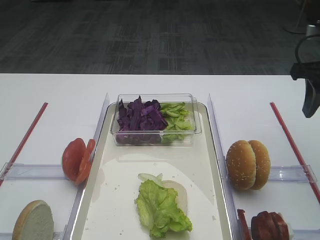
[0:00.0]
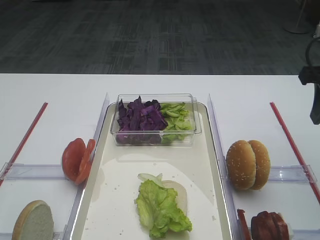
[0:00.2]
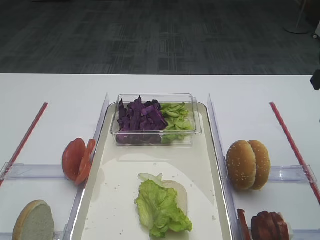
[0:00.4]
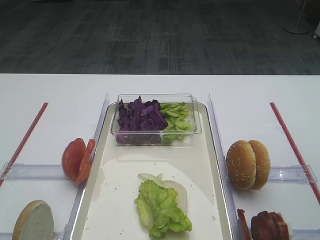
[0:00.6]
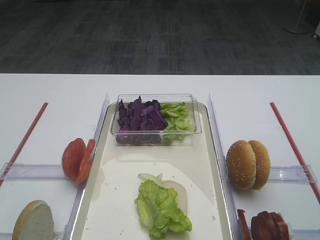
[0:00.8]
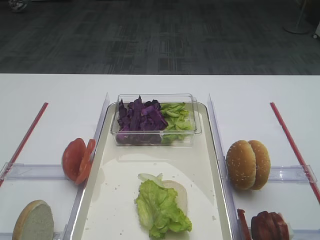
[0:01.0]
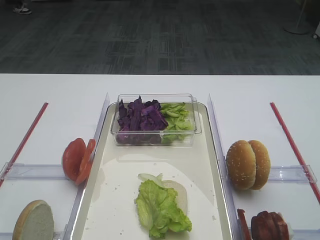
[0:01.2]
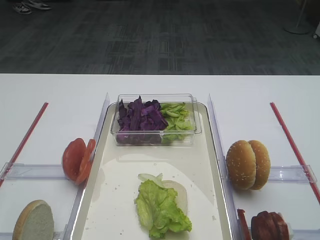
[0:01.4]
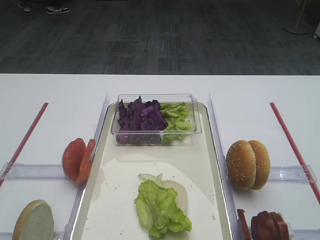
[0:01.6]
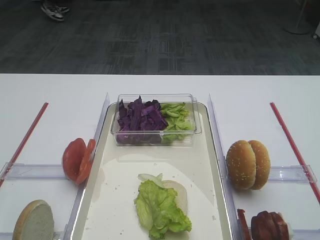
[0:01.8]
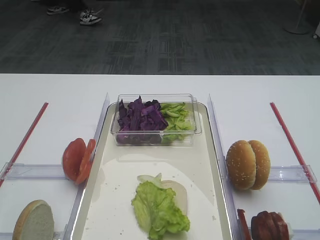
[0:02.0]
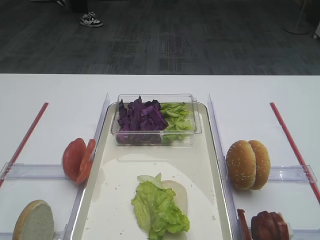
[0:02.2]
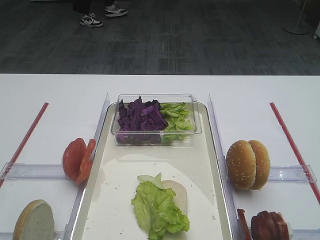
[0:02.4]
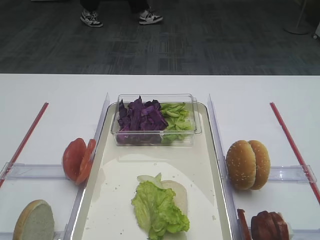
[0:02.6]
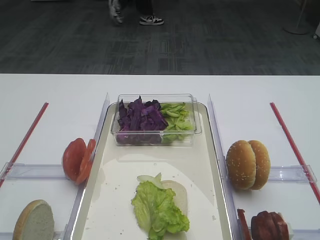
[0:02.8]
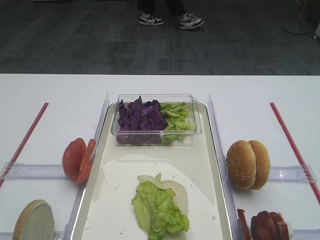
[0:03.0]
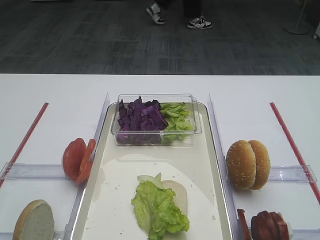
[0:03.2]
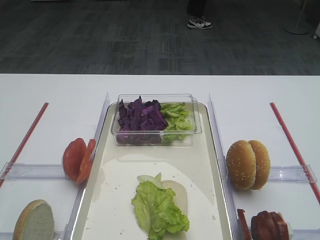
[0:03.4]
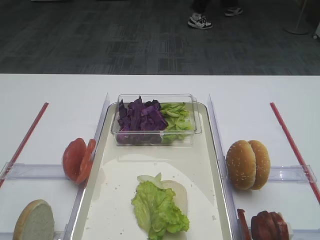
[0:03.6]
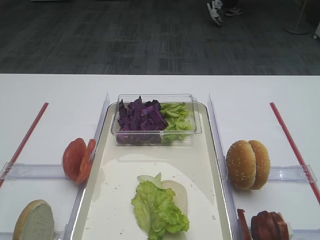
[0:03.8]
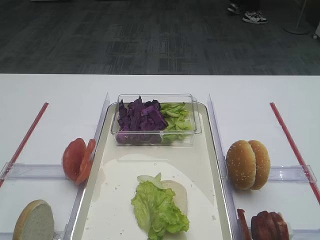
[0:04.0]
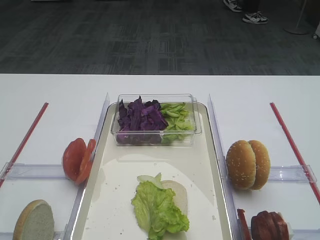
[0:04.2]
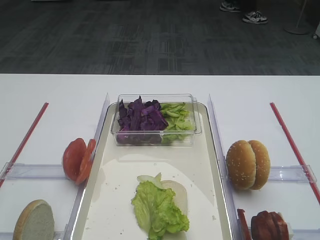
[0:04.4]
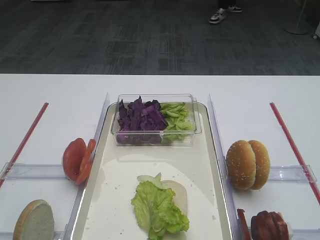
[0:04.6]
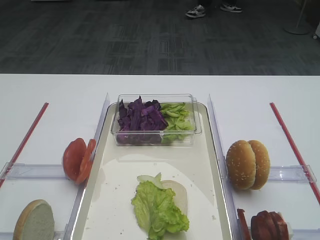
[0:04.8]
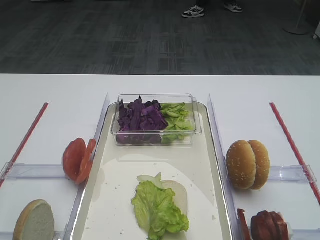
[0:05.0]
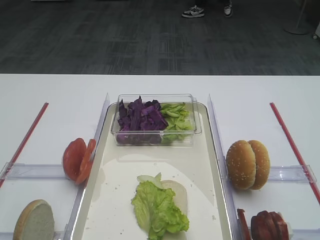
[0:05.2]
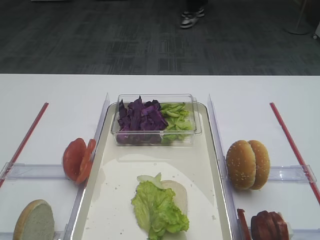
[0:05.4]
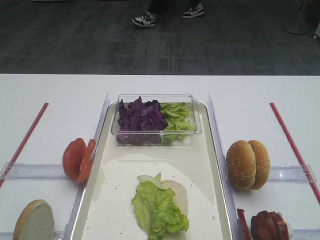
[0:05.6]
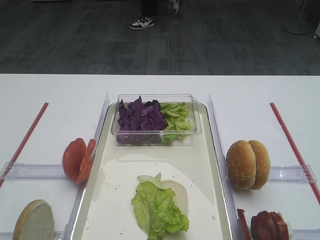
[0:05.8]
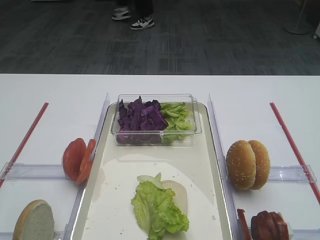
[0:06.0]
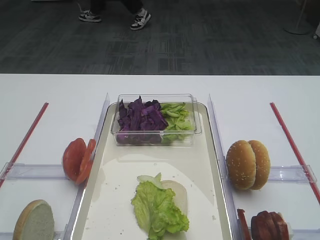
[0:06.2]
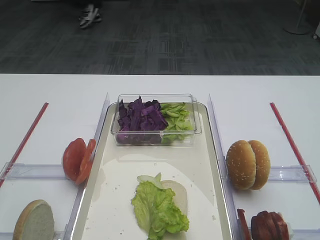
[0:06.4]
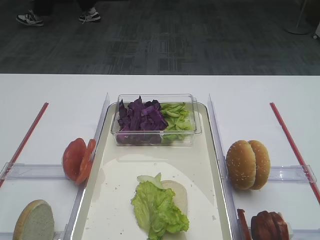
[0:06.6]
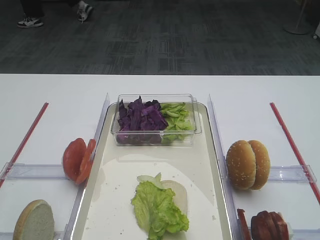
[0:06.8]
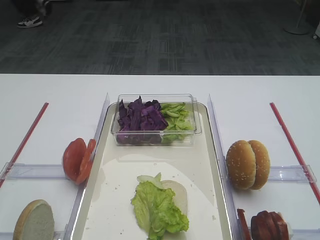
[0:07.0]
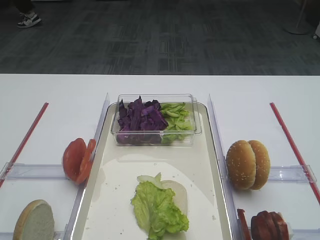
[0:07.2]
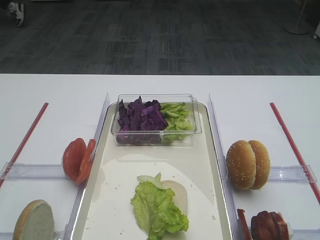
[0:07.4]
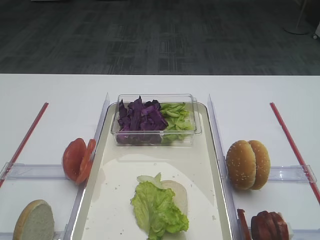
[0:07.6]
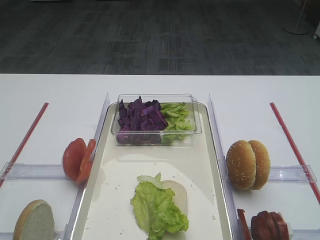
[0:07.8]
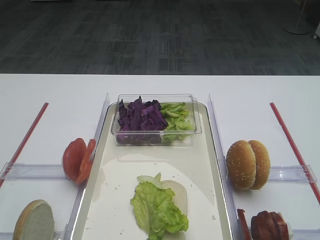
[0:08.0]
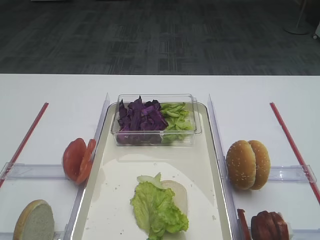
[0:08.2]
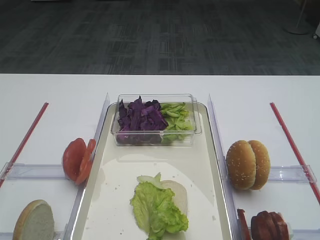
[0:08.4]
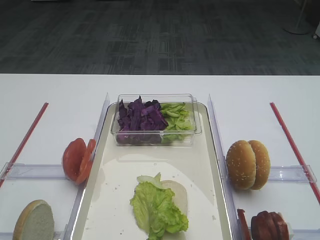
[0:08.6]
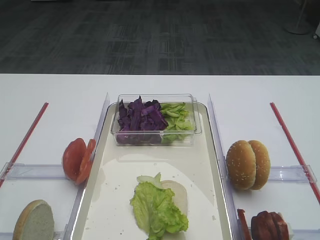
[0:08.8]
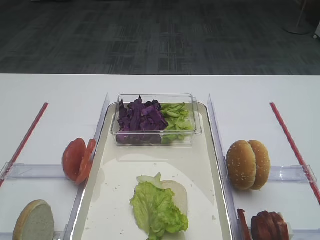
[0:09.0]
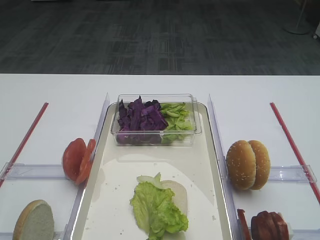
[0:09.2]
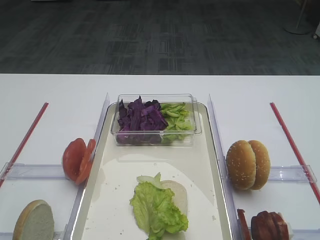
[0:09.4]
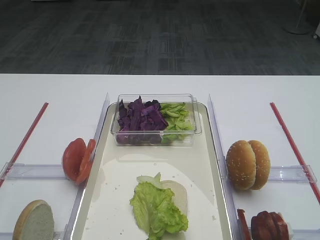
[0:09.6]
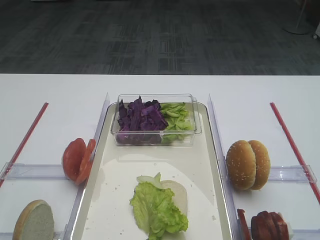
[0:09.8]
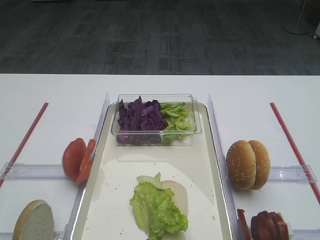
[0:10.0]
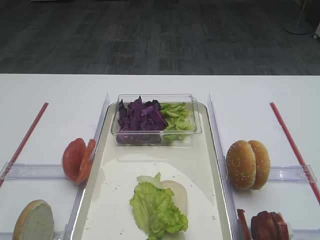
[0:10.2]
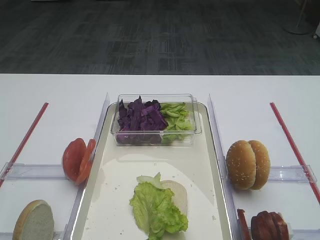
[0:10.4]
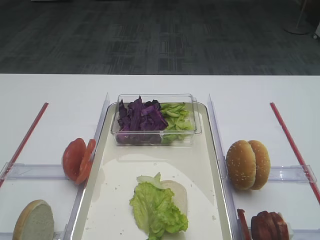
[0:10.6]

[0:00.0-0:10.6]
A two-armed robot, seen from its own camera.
0:00.0 to 0:01.6: The right gripper shifts about 25 cm backward and upward.
0:01.6 to 0:03.0: The right gripper shifts approximately 10 cm backward and downward.
0:04.6 to 0:06.0: Both grippers stay put.
0:06.0 to 0:10.6: The two grippers keep their place.

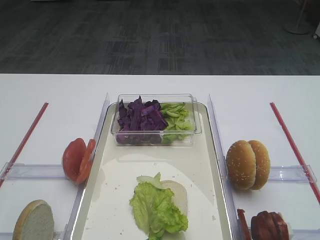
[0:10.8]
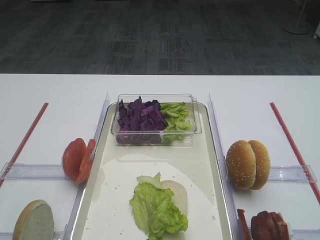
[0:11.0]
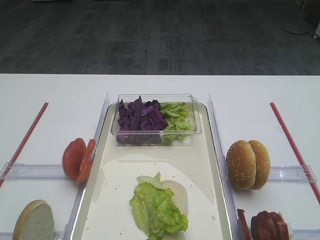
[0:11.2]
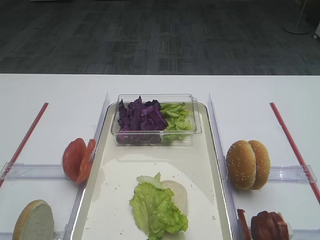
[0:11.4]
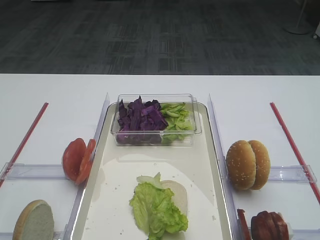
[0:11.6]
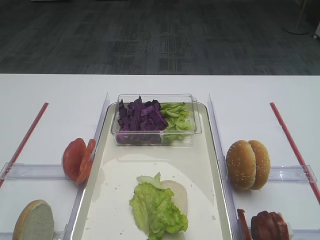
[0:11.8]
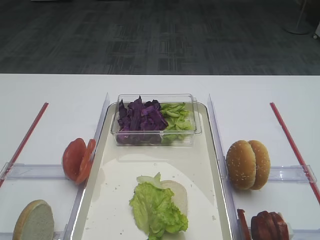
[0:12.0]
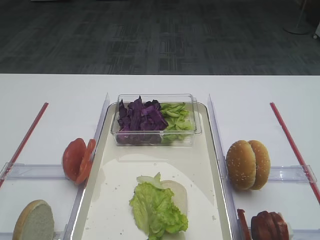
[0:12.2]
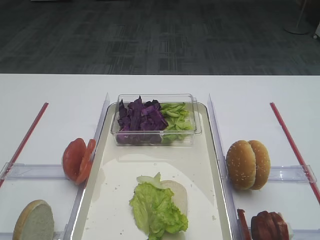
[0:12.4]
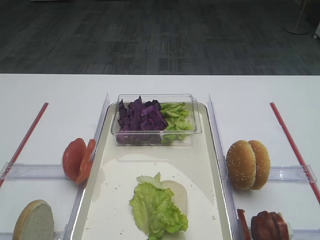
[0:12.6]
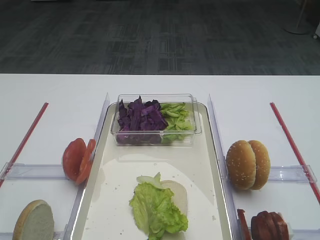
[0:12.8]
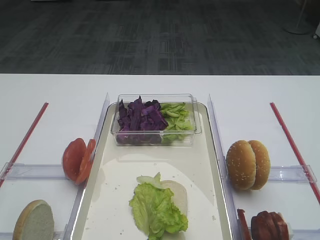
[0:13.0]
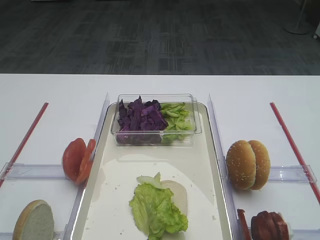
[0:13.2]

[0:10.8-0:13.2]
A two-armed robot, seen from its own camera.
0:10.8 to 0:13.2: The two grippers keep their place.

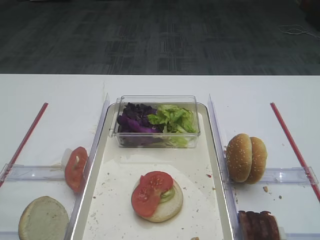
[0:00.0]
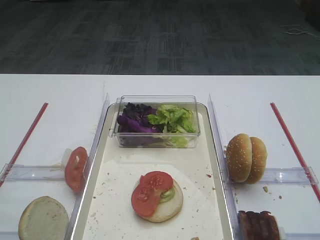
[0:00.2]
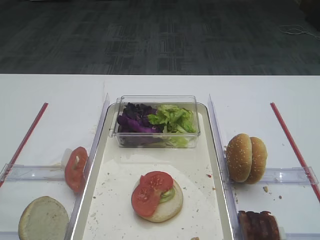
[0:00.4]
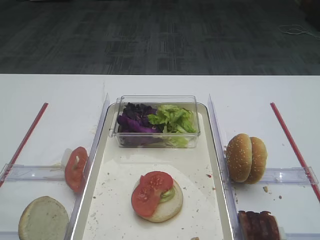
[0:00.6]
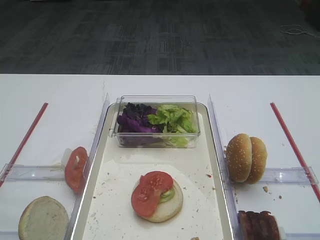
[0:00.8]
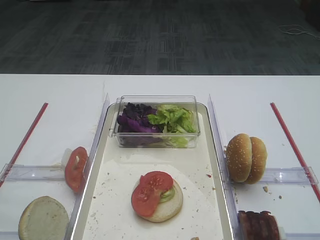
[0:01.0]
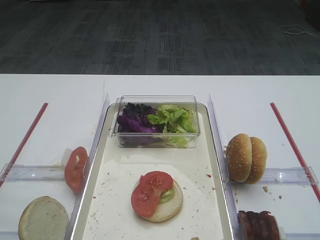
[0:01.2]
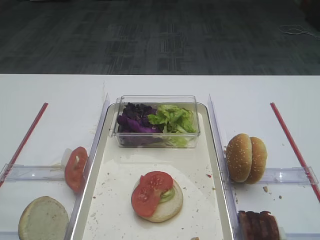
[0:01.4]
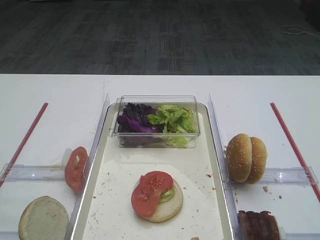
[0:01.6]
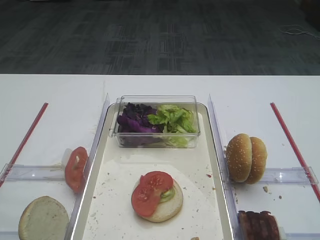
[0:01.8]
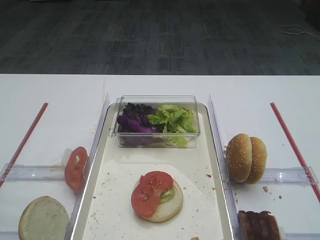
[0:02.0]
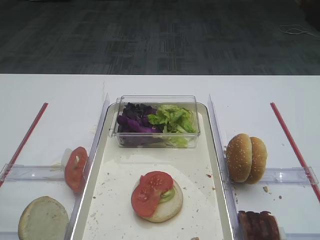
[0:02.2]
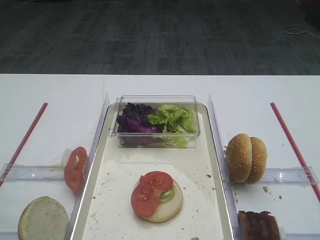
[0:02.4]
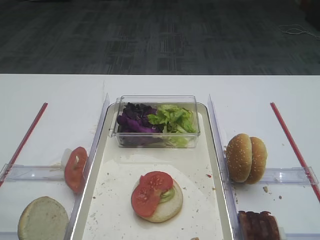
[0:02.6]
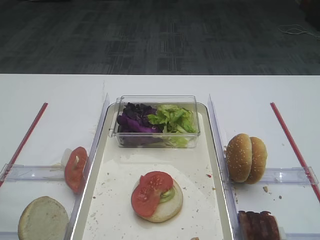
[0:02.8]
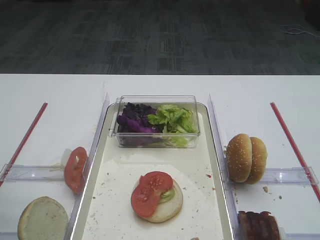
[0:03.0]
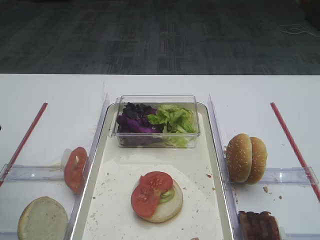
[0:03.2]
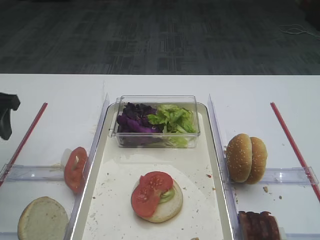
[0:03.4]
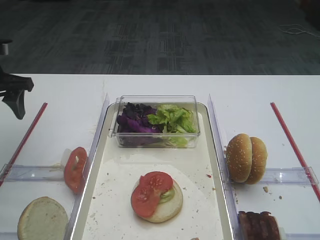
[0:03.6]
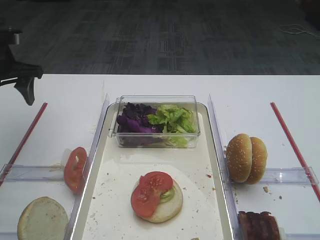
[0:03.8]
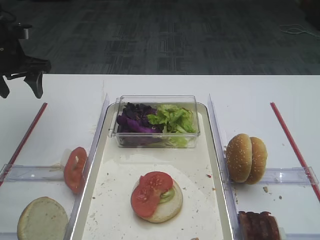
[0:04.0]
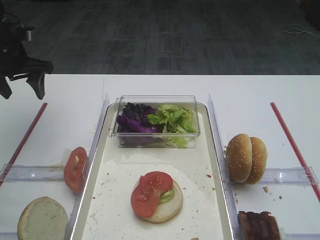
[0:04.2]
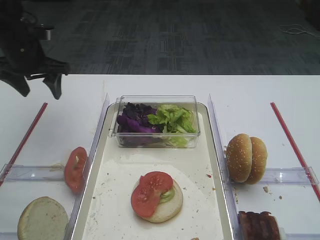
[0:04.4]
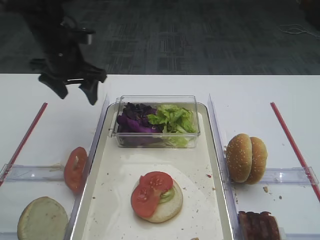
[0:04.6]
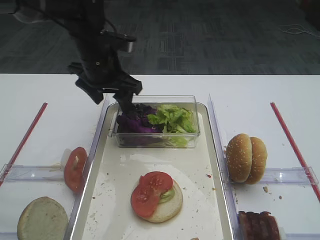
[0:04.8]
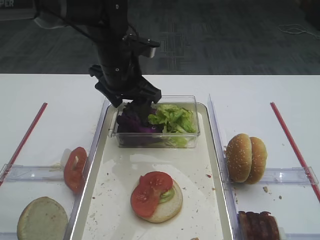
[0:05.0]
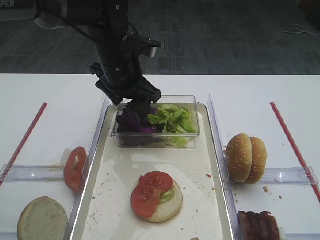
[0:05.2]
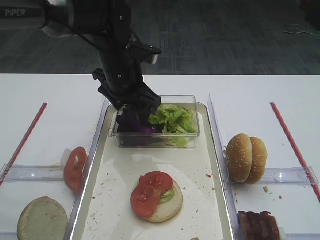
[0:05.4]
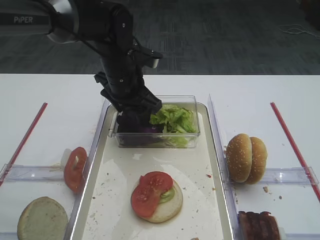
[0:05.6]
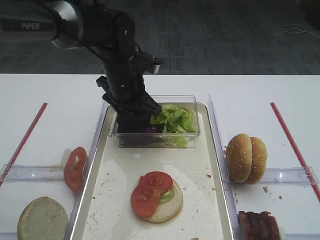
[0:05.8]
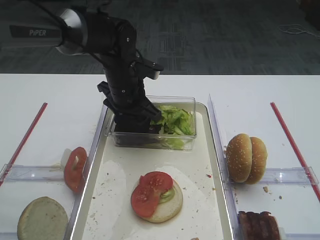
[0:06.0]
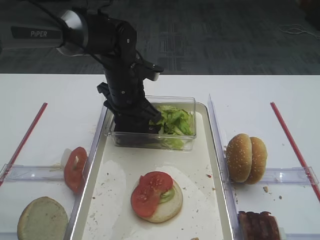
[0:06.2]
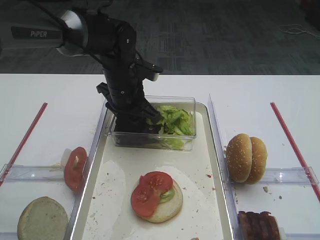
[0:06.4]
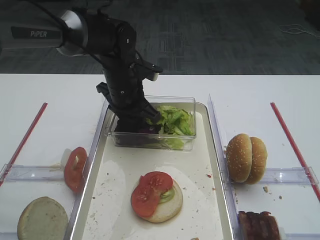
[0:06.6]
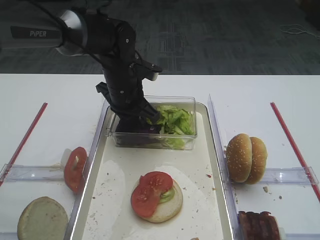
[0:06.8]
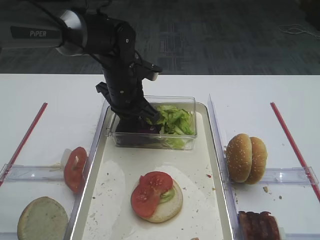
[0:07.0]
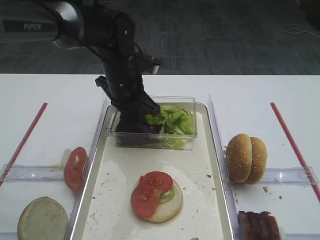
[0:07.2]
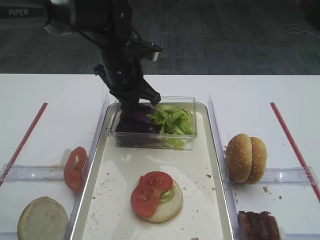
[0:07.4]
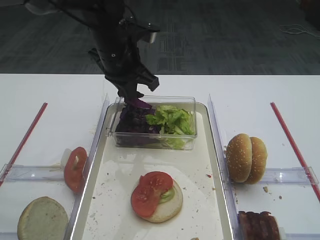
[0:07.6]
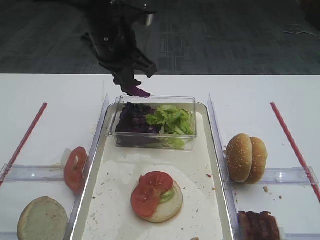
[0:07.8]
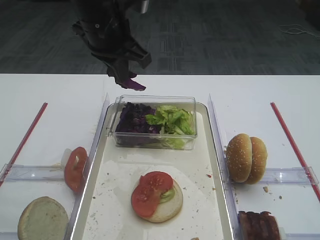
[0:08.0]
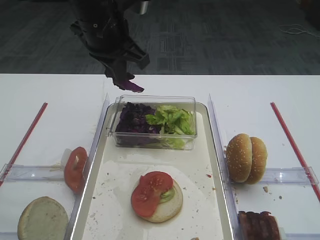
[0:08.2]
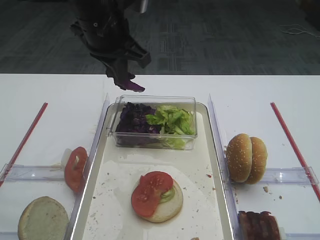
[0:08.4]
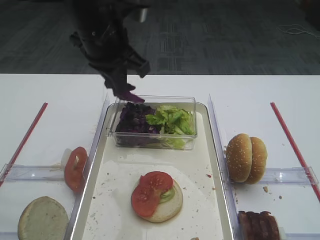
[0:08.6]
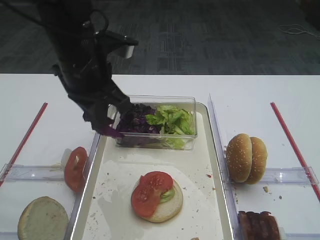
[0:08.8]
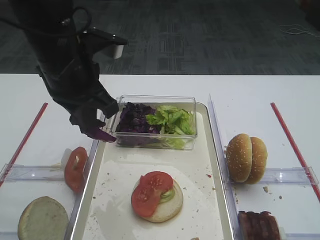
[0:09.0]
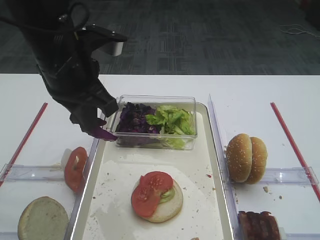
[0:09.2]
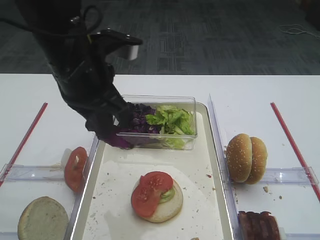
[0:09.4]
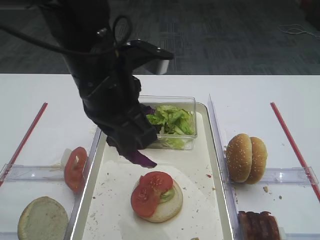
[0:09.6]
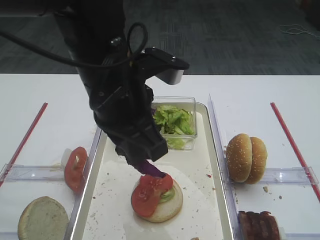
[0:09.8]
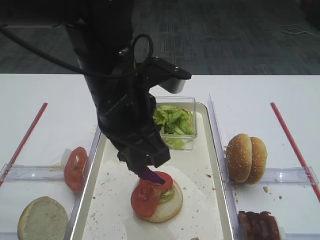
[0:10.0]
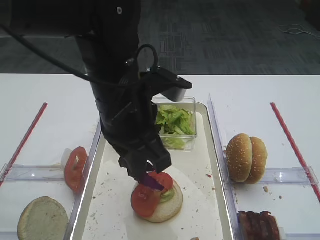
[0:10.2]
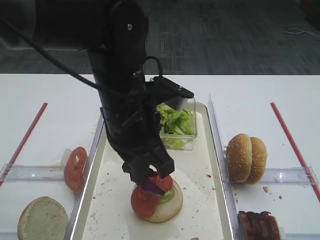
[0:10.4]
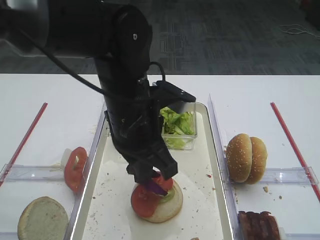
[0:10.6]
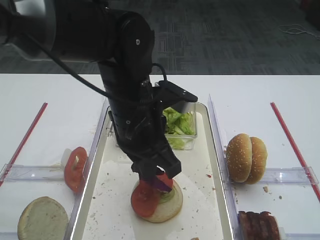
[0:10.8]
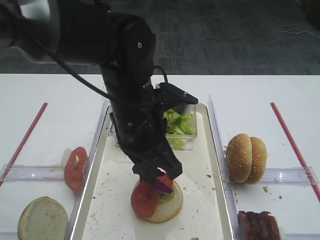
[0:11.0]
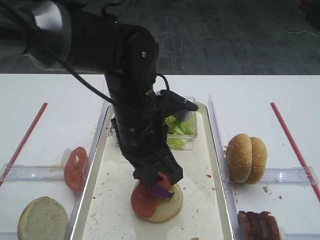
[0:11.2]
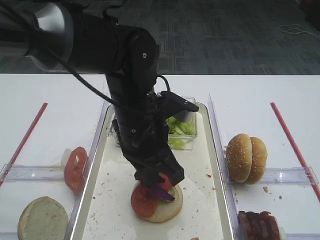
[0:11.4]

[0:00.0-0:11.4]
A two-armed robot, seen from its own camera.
Step, 0:00.0 to 0:07.6: Pick up the purple cabbage with the left gripper.
0:02.8 to 0:04.2: The left gripper is displaced forward by some 30 cm.
0:04.2 to 0:05.6: The left gripper is displaced to the right by roughly 25 cm.
0:05.6 to 0:07.2: The left gripper closes up.
0:07.2 to 0:08.6: The left gripper heads upward and backward, covering some 15 cm.
0:08.6 to 0:10.0: The left gripper is displaced backward by approximately 10 cm.
0:10.0 to 0:11.4: The left gripper is displaced downward by approximately 5 cm.
